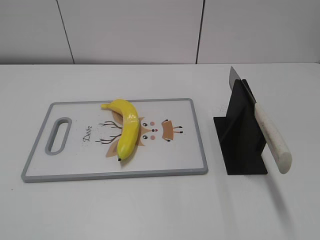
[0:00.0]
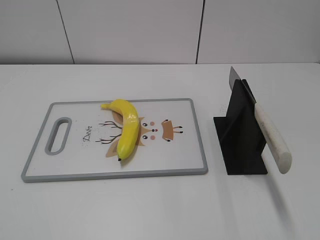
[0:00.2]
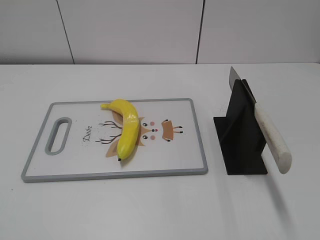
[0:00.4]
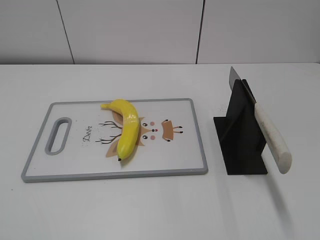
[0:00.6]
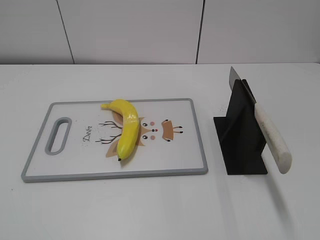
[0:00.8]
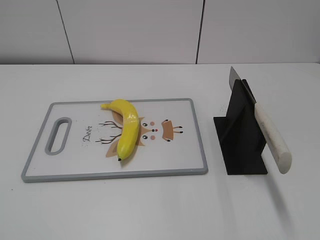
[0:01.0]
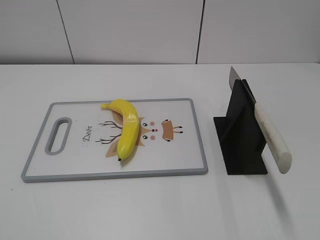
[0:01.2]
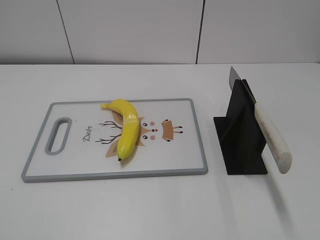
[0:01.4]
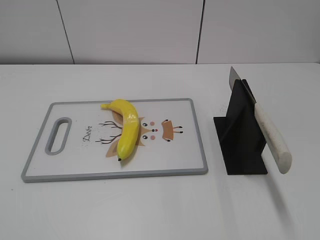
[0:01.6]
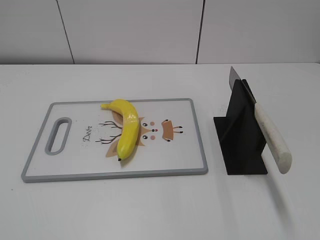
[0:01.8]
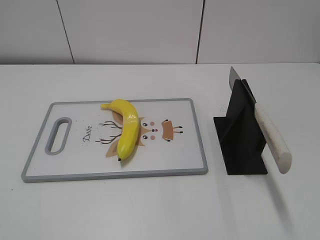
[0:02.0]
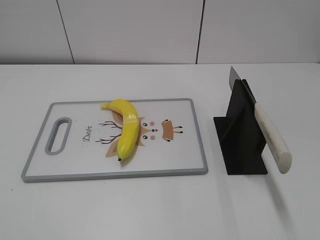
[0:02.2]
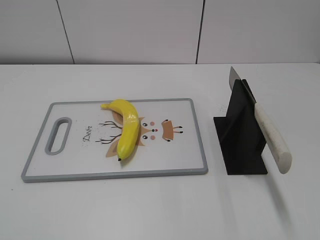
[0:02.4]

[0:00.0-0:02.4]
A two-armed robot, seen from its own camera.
Task of the whole recording: cut plastic banana.
0:00.0 to 0:02.4: Neither gripper changes place.

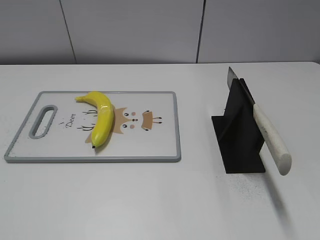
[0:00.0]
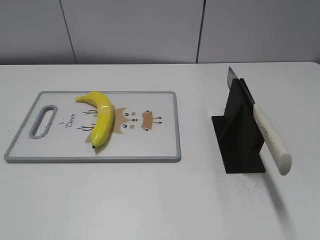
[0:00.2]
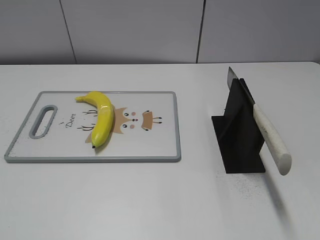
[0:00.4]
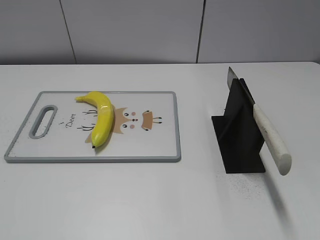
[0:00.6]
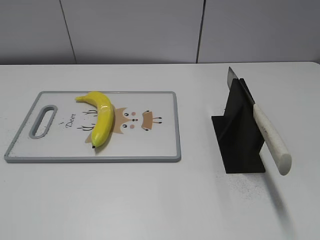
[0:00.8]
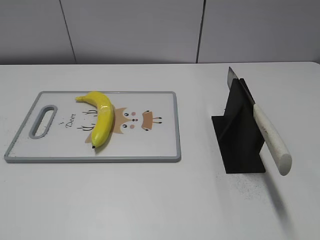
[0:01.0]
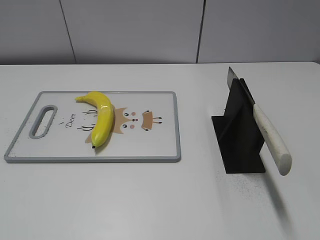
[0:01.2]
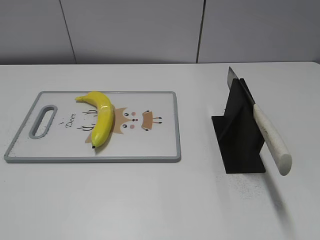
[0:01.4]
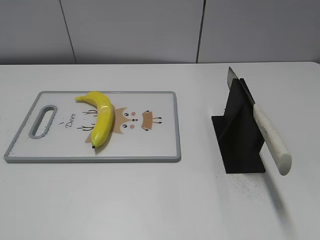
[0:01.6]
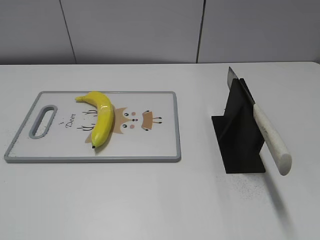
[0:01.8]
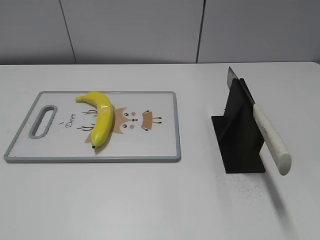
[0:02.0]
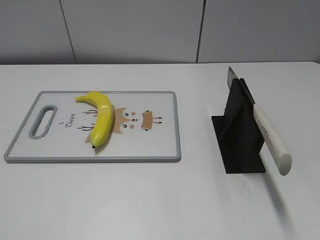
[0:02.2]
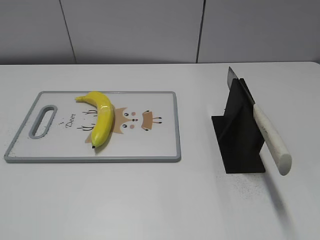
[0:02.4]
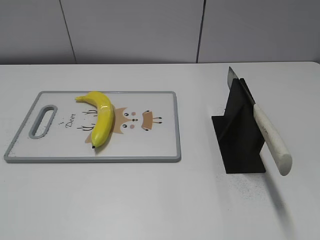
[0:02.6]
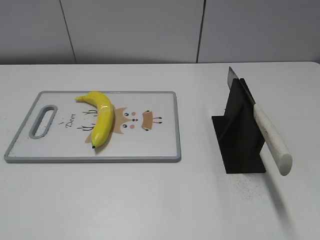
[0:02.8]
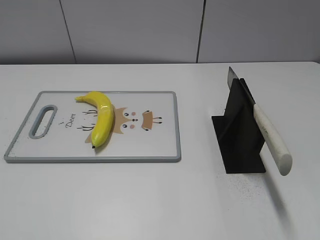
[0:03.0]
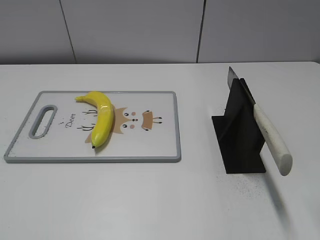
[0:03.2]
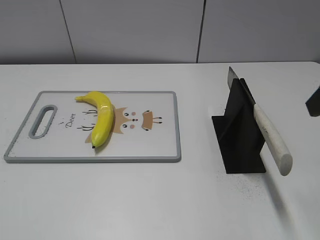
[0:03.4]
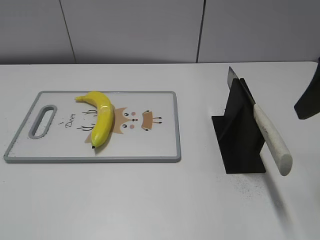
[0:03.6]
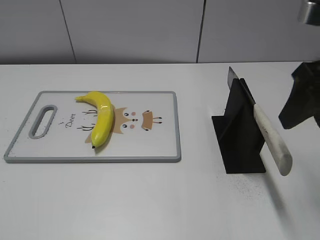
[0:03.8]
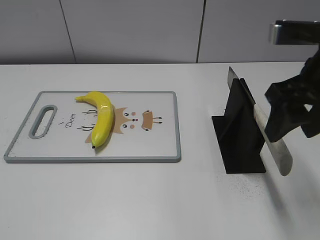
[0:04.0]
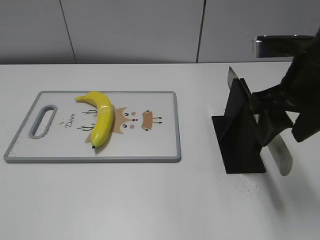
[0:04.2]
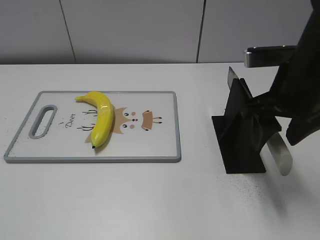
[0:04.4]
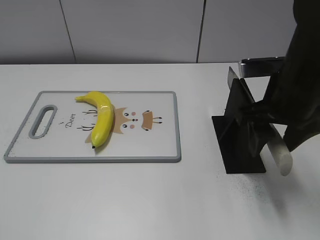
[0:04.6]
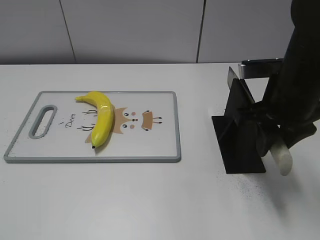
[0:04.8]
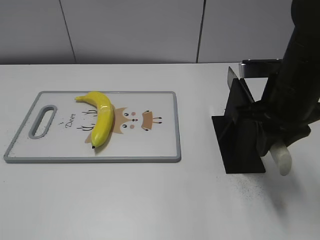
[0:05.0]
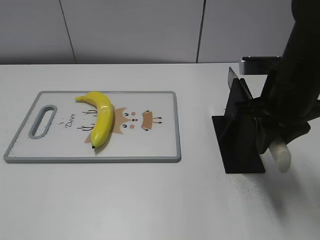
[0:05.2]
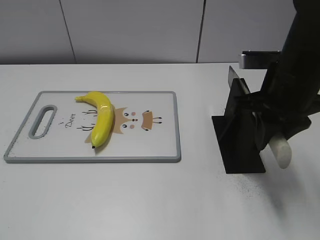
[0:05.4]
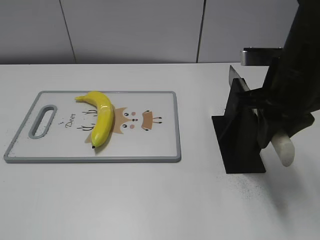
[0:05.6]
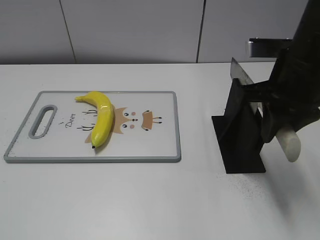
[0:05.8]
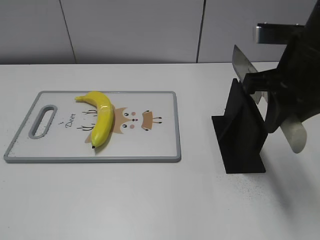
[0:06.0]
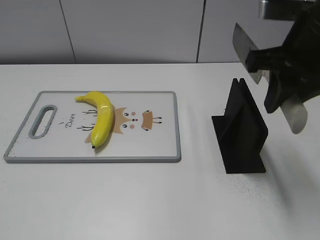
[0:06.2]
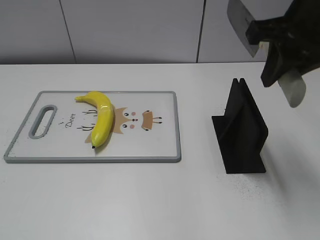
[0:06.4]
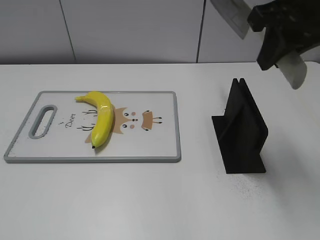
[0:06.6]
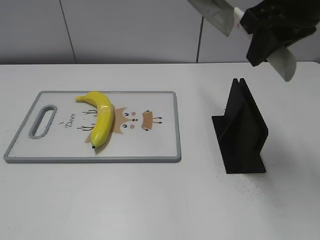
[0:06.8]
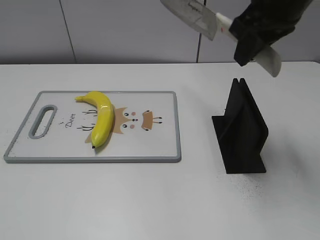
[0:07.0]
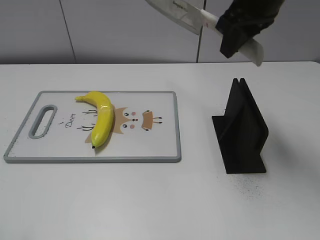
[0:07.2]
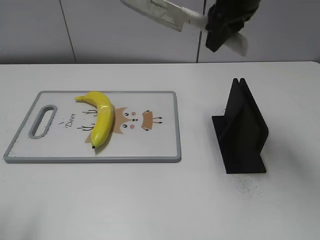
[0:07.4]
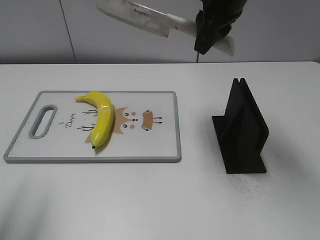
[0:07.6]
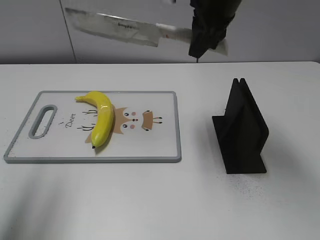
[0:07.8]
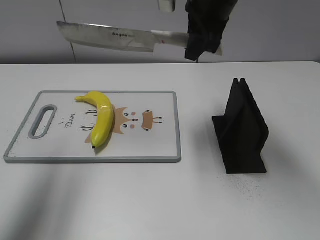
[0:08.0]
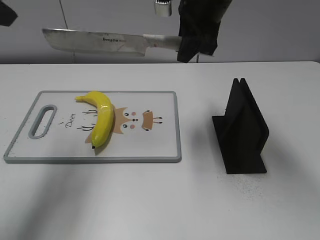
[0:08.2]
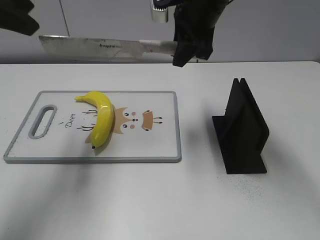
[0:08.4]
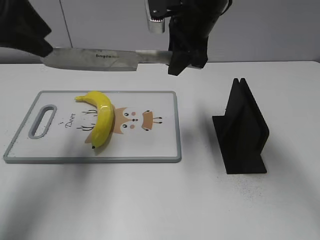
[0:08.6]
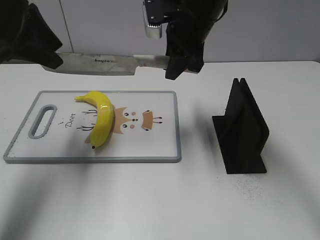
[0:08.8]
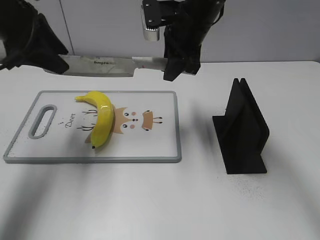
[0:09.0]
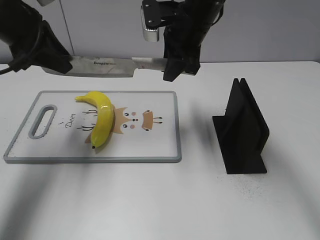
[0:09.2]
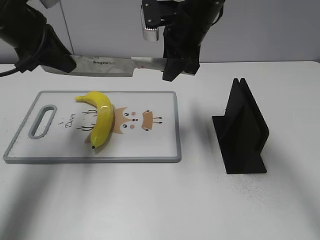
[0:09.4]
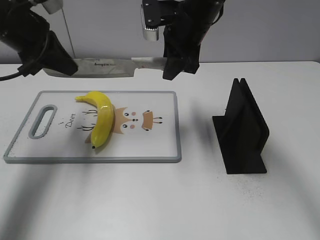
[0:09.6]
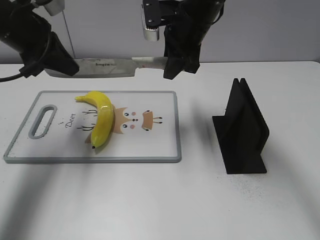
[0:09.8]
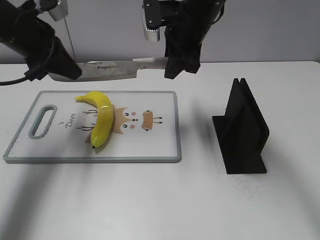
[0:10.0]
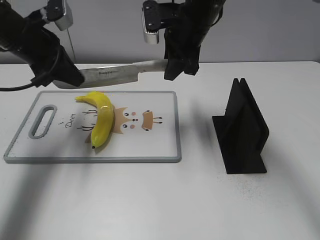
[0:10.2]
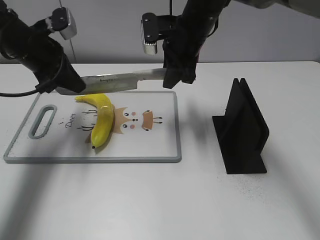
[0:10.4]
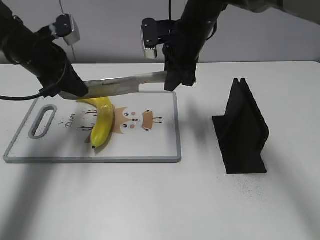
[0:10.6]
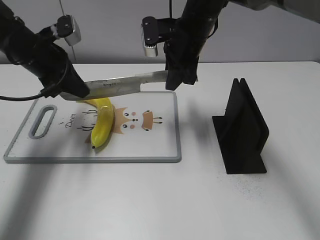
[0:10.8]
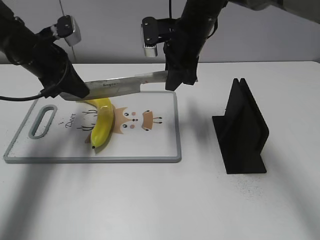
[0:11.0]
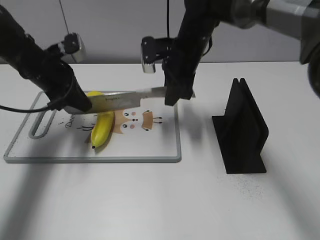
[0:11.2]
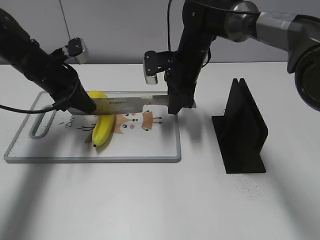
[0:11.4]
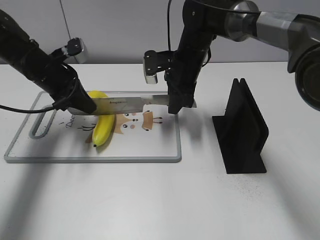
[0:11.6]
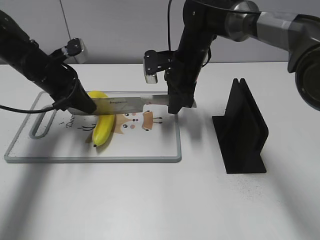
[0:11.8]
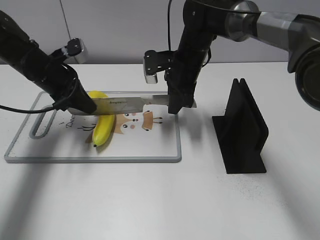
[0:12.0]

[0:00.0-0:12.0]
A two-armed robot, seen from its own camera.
Task of the whole recording: cut plastic banana.
Step, 0:00.0 to 0:06.2: Grab the knife handle with your right hand.
Step, 0:06.4 to 0:11.8: Lift the knife with your right hand.
0:03.0 to 0:04.4: The right gripper heads forward, to the left and downward, covering approximately 15 cm.
0:04.4 to 0:06.0: The right gripper closes its fingers.
0:06.0 to 0:07.6: The left gripper travels forward and upward by approximately 15 cm, while the right gripper travels forward and to the left by approximately 15 cm.
0:07.6 to 0:09.0: The left gripper shifts roughly 20 cm forward. The right gripper shifts some 5 cm downward.
0:09.0 to 0:10.4: The left gripper heads downward, covering about 10 cm, and closes up.
0:10.4 to 0:12.0: Both grippers travel together downward, some 5 cm.

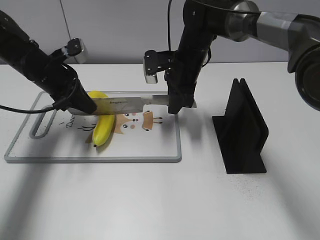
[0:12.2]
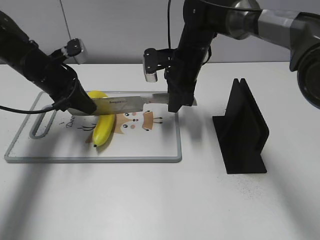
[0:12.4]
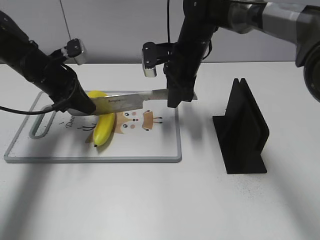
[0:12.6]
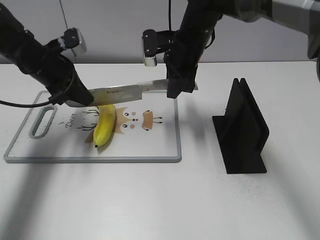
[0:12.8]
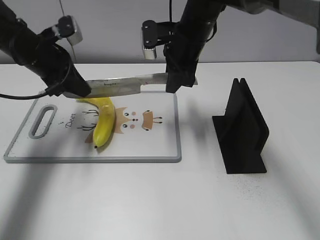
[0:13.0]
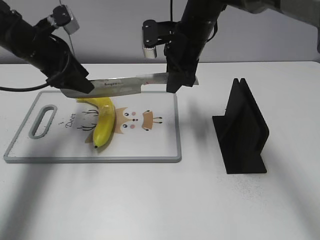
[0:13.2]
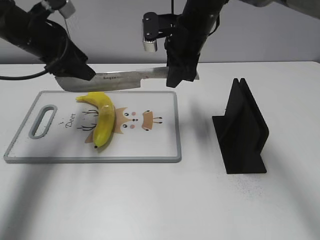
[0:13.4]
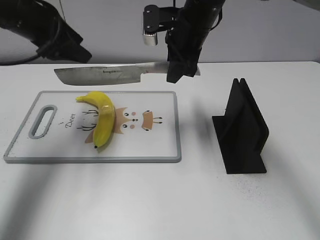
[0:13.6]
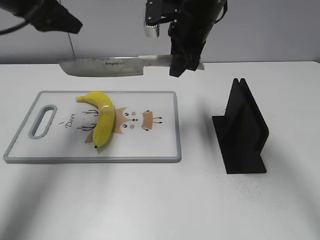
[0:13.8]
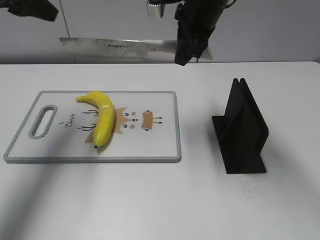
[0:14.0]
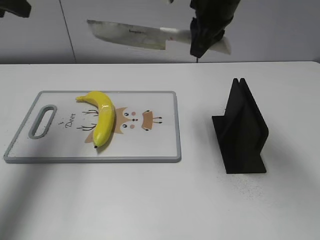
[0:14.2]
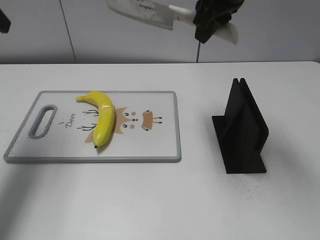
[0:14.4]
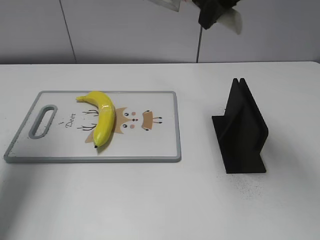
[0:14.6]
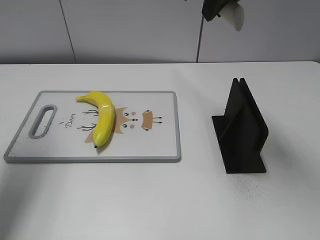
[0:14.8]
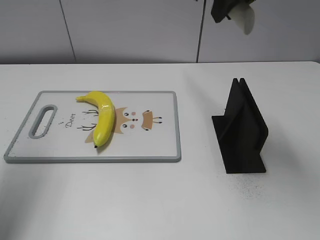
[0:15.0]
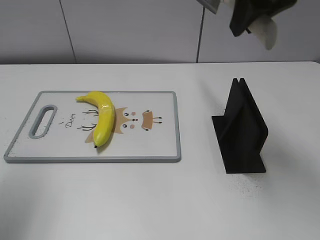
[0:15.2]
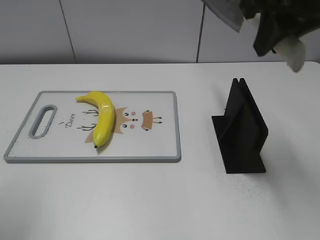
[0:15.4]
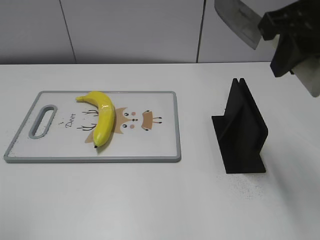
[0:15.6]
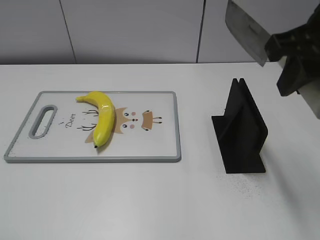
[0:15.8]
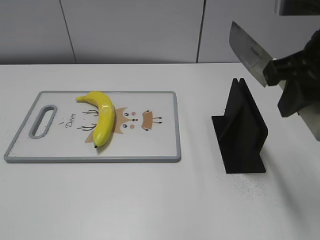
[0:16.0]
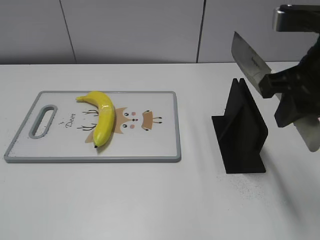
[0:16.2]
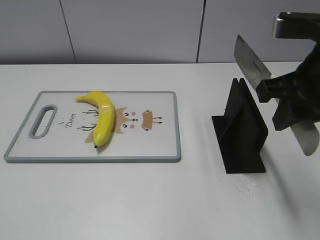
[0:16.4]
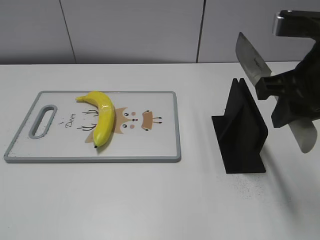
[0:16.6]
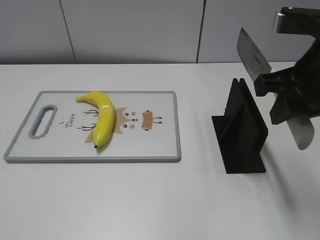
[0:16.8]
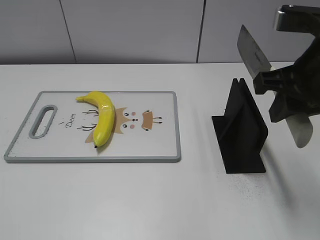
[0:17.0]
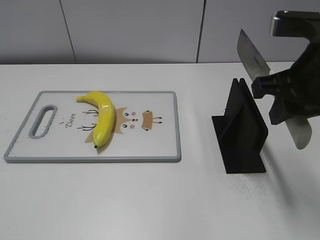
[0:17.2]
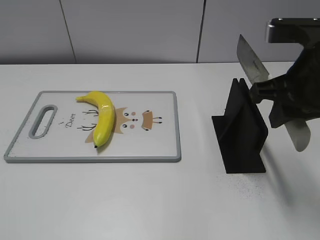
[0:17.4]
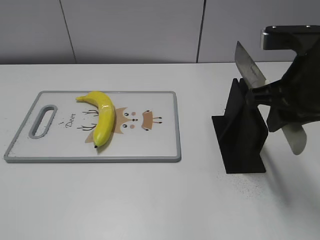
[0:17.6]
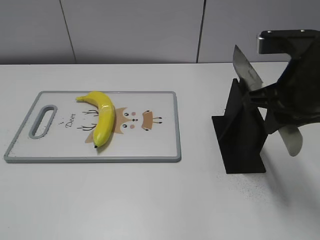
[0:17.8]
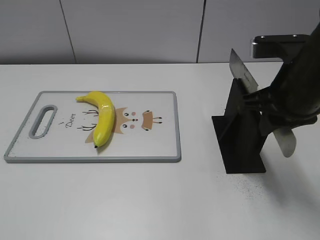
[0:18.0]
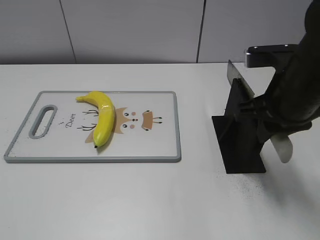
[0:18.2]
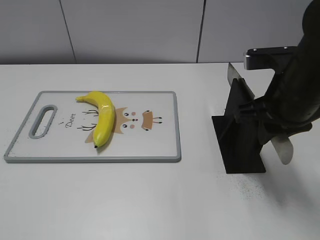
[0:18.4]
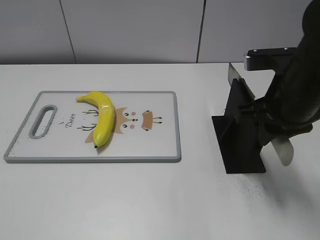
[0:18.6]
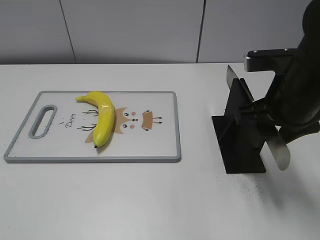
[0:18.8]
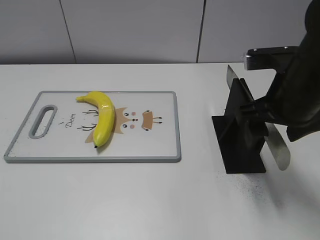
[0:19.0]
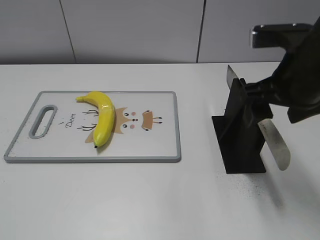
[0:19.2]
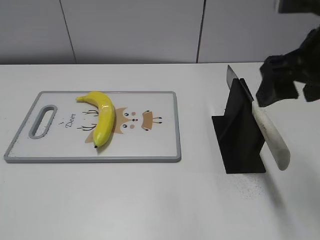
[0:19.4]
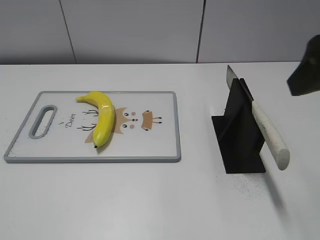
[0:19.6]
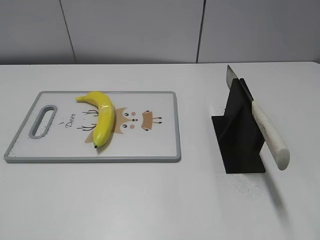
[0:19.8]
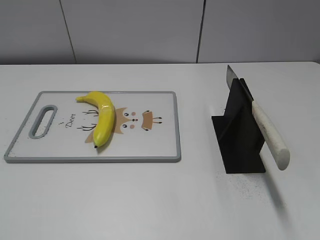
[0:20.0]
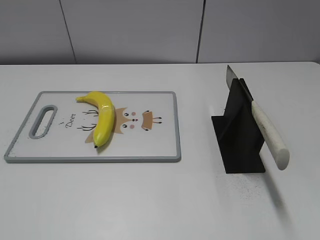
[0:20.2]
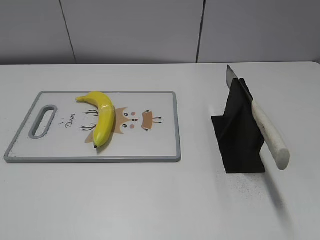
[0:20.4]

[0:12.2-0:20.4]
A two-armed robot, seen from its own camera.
Task of the whole recording: cut plastic banana.
Step, 0:12.2 to 0:15.6: Cut the banana with your right hand.
Step, 0:15.8 to 0:16.4: Lift the knife with your right hand.
0:12.2 to 0:13.8: The left gripper moves upward, about 20 cm, and opens its fingers. Meanwhile the right gripper goes about 10 cm upward.
0:13.8 to 0:15.4: The right gripper goes about 20 cm backward, upward and to the right. The left gripper heads backward, covering approximately 20 cm.
0:15.4 to 0:17.2: The right gripper moves downward, some 10 cm. Meanwhile the left gripper heads backward and downward, covering about 20 cm.
0:17.2 to 0:18.8: The right gripper travels downward by roughly 5 cm, and opens its fingers.
0:18.8 to 0:20.4: The right gripper is displaced backward and to the right by roughly 25 cm, and opens its fingers.
